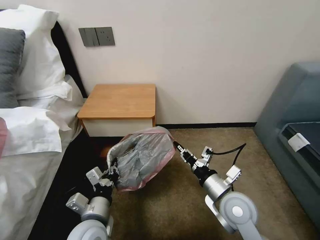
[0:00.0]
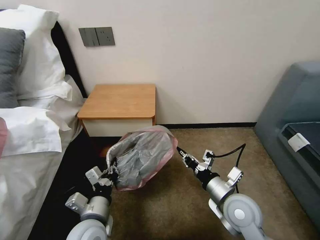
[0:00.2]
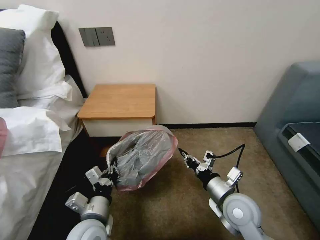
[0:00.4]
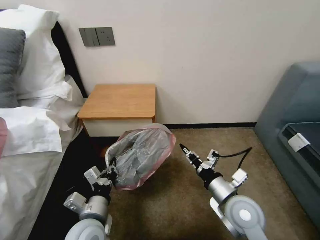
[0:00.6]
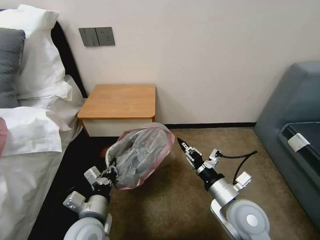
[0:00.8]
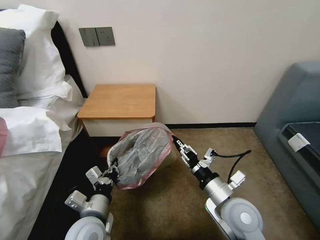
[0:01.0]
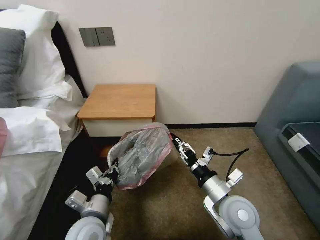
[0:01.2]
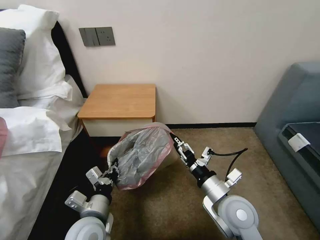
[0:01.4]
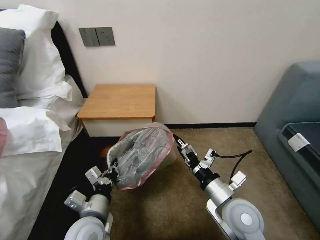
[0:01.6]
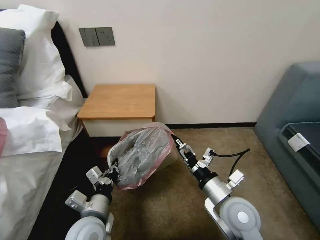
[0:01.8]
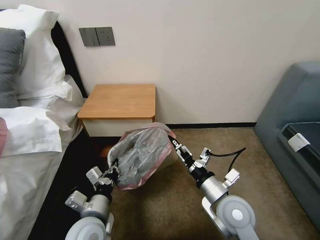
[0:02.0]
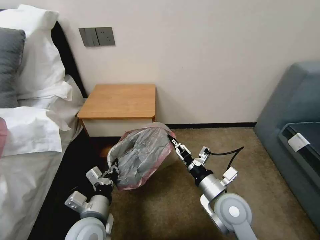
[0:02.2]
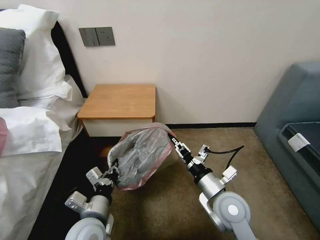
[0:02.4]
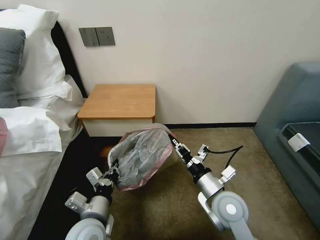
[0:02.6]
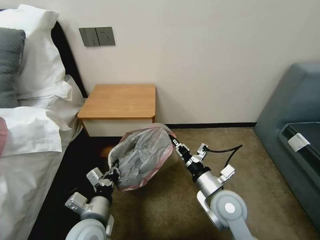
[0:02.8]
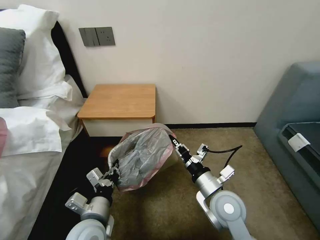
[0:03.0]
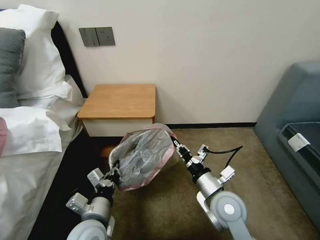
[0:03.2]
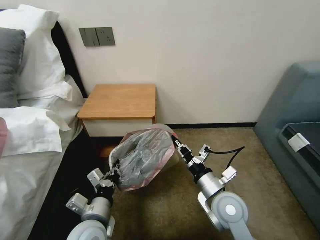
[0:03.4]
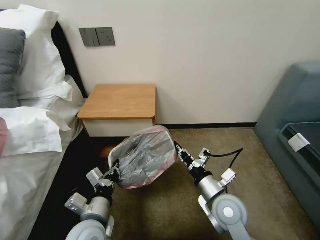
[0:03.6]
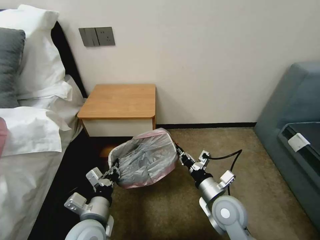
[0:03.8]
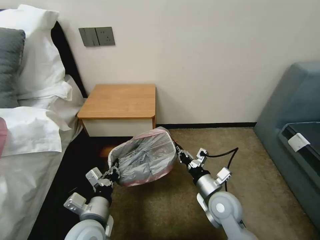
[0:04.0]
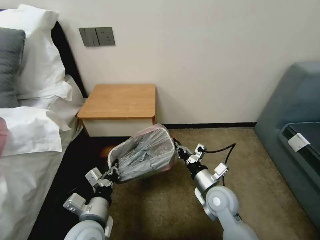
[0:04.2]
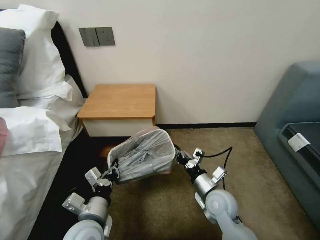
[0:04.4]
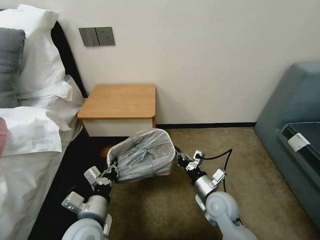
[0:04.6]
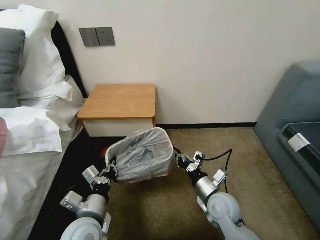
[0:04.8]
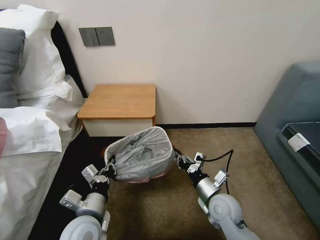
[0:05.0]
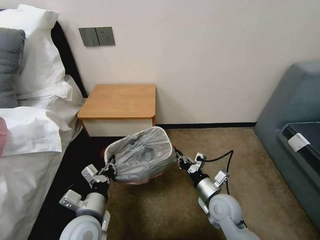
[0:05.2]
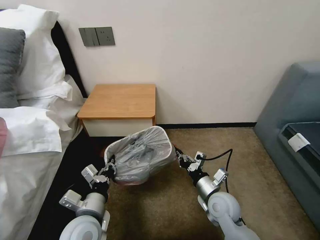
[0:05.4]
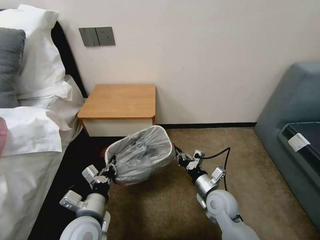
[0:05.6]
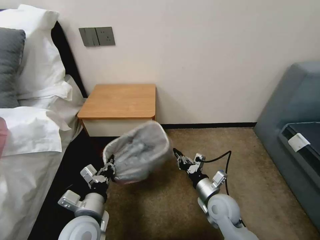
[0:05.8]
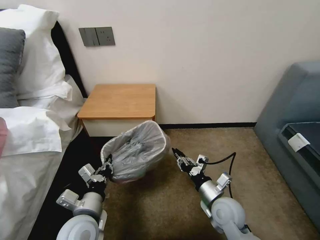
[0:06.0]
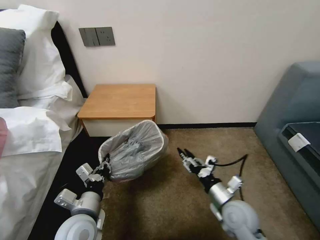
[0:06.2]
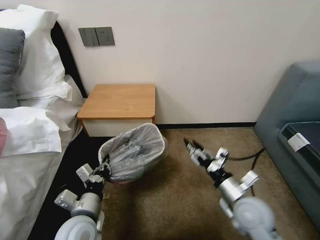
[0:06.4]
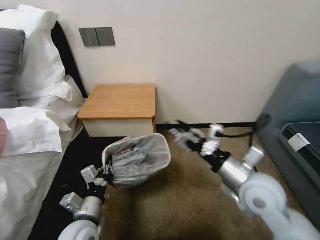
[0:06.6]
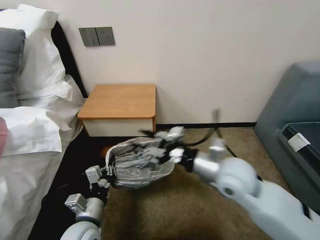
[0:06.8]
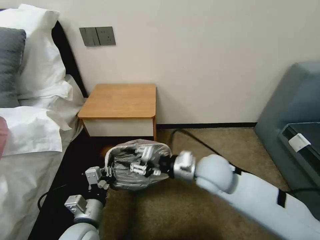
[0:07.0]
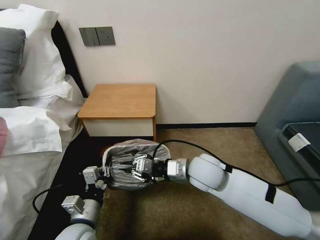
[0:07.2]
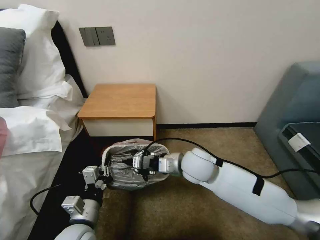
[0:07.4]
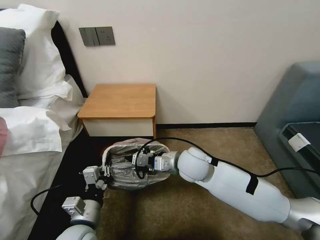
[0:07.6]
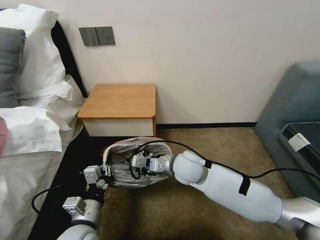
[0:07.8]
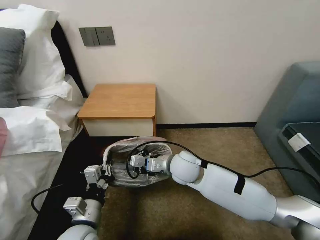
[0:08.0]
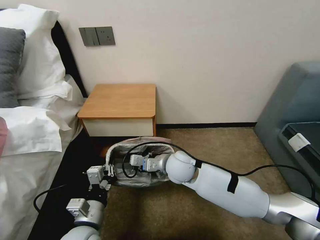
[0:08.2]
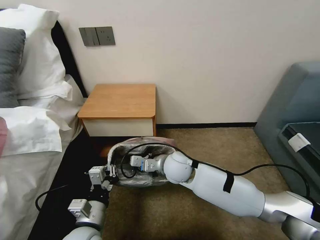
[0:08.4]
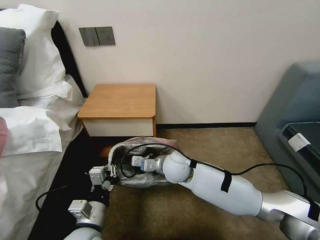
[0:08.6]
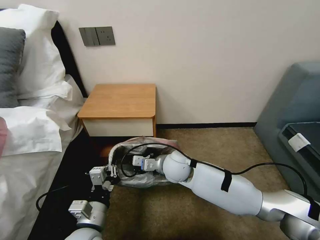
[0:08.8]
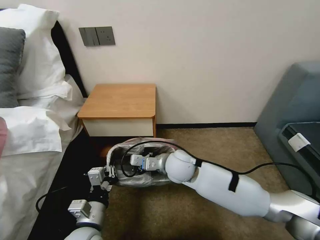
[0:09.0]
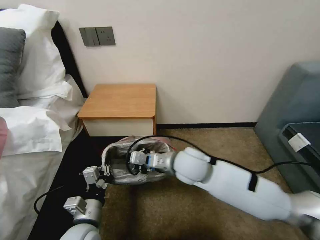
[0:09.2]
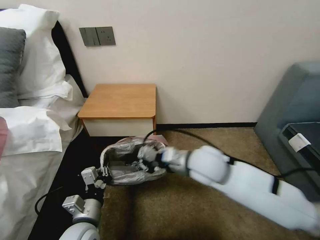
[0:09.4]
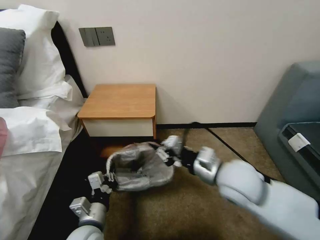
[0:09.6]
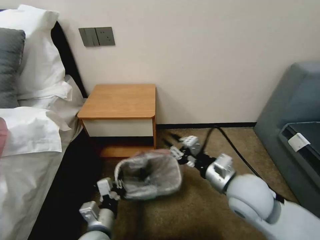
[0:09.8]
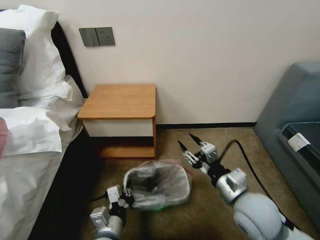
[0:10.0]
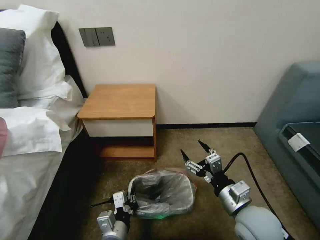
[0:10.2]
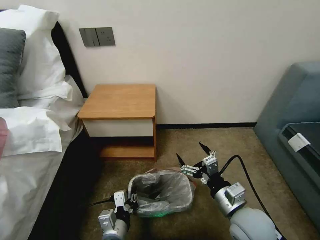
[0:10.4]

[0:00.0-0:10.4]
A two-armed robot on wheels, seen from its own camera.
Task of the whole recording: Pick up the garbage bag from the table and place it over the trash can.
0:00.0 to 0:01.4: The right gripper opens.
0:01.4 to 0:03.0: The right gripper closes up.
0:03.0 to 0:04.4: The right gripper travels downward by roughly 5 cm.
0:04.4 to 0:06.0: The grippers make only small movements.
0:06.0 to 0:07.4: The right gripper moves upward, to the left and forward, some 20 cm, and opens, then closes again.
0:07.4 to 0:09.0: The right gripper ends up approximately 5 cm from where it was.
0:09.0 to 0:10.4: The left gripper travels downward and to the right by some 5 cm; the right gripper shifts some 25 cm backward and to the right, and opens.

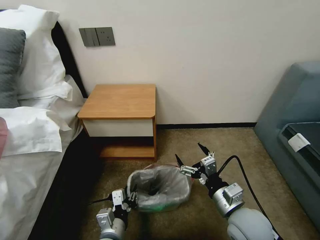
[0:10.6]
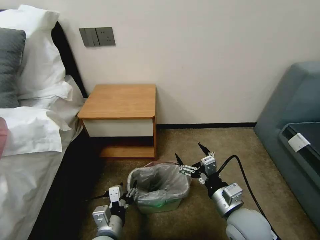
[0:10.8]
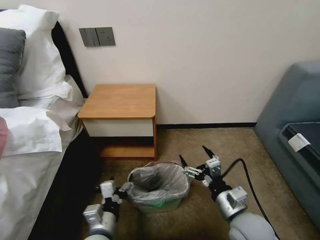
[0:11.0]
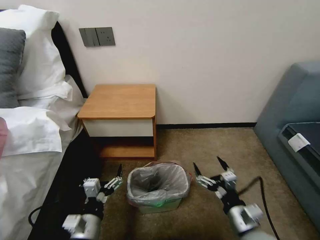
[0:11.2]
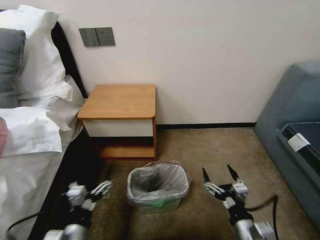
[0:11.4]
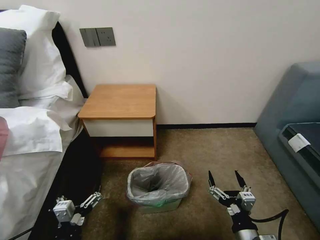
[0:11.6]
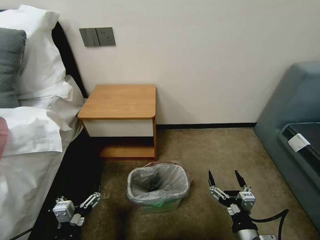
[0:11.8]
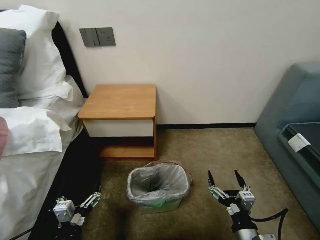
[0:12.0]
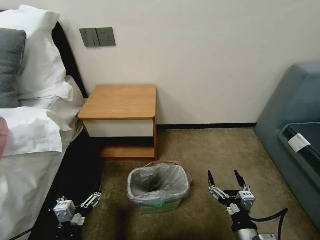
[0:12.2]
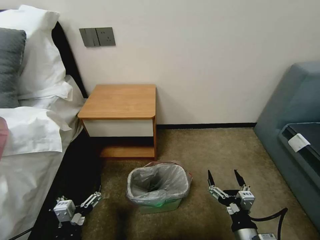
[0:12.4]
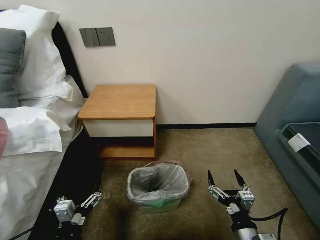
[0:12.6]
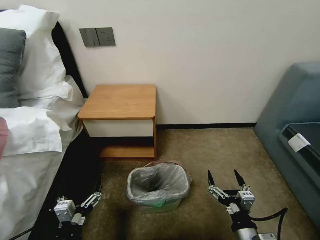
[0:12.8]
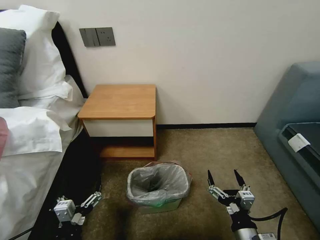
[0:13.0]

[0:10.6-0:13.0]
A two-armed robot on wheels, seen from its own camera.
Task of the whole recording: Pick up the garbage bag from the table and place it over the trash can.
0:10.6 to 0:11.8: The right gripper shifts about 10 cm backward and downward. The left gripper moves to the left and backward, approximately 10 cm, and opens.
0:11.8 to 0:13.0: Both grippers stay about where they are.
